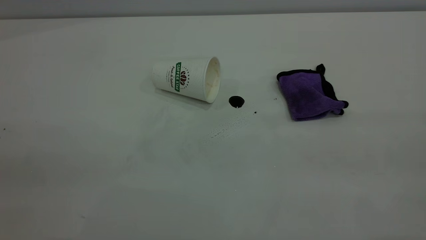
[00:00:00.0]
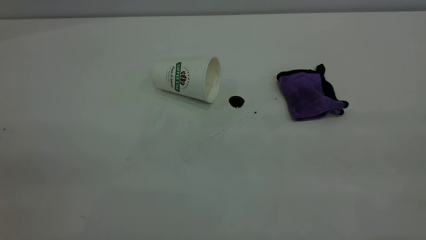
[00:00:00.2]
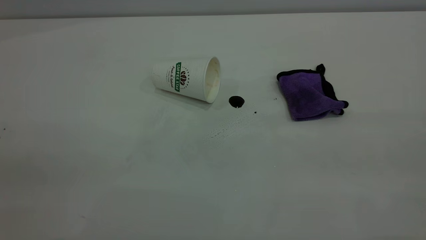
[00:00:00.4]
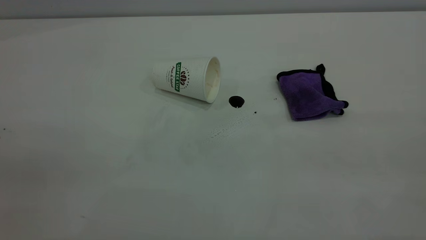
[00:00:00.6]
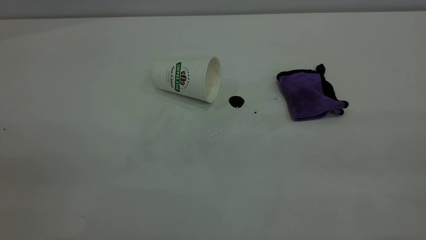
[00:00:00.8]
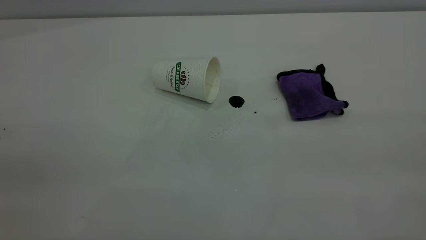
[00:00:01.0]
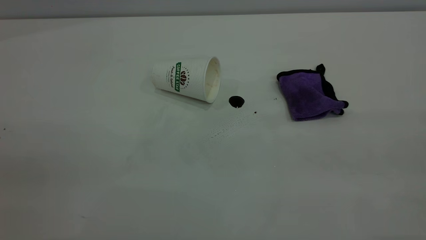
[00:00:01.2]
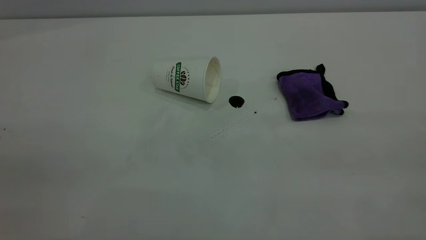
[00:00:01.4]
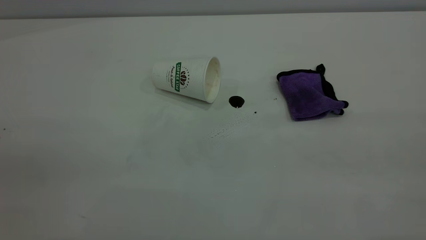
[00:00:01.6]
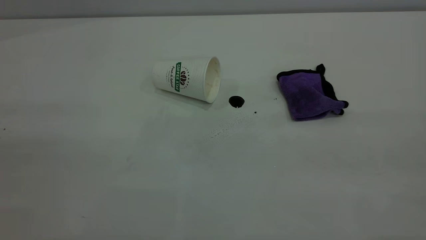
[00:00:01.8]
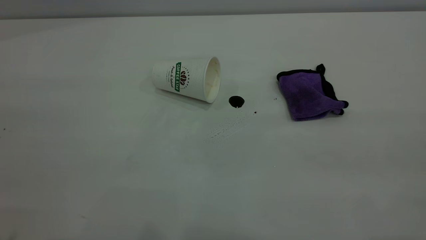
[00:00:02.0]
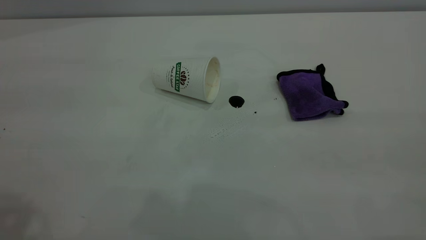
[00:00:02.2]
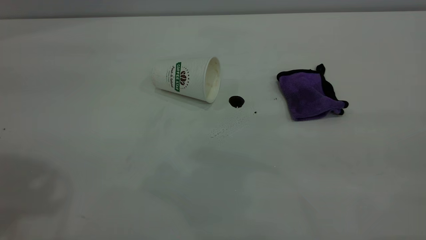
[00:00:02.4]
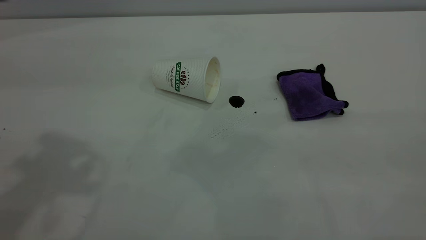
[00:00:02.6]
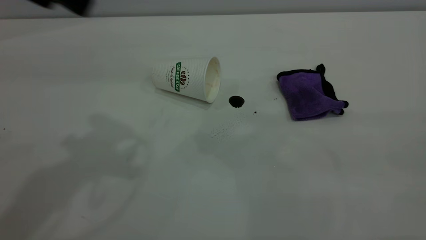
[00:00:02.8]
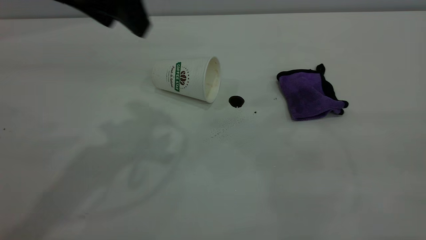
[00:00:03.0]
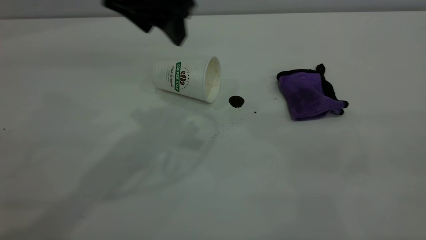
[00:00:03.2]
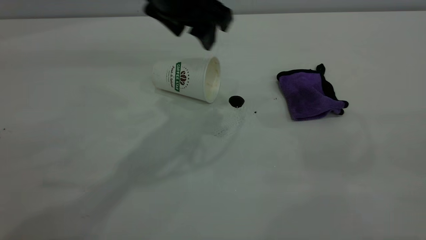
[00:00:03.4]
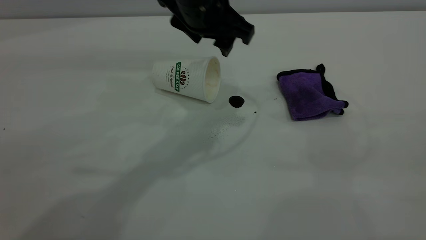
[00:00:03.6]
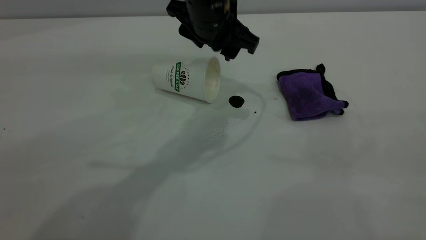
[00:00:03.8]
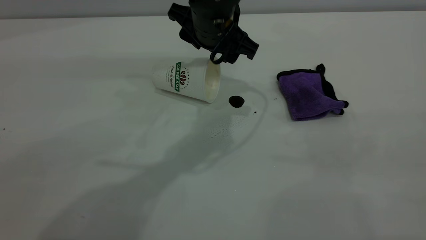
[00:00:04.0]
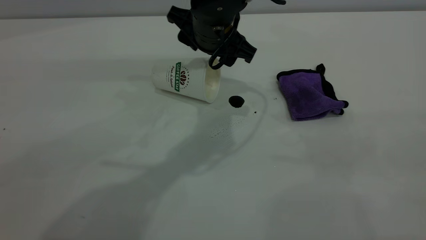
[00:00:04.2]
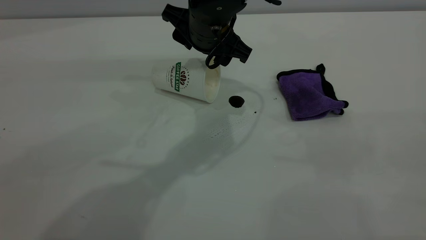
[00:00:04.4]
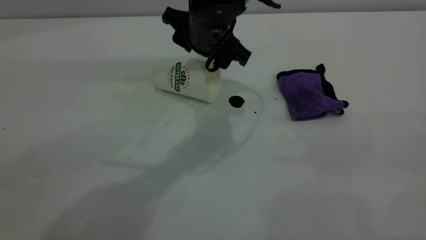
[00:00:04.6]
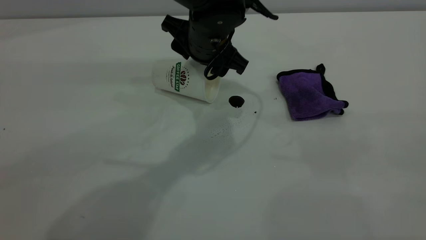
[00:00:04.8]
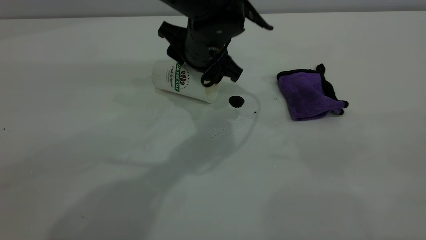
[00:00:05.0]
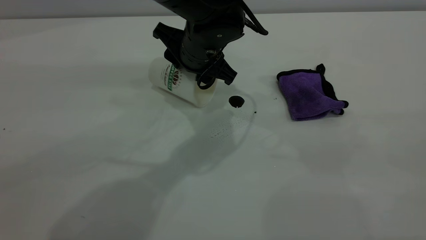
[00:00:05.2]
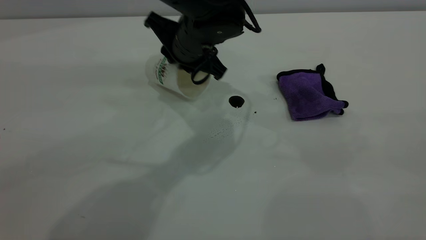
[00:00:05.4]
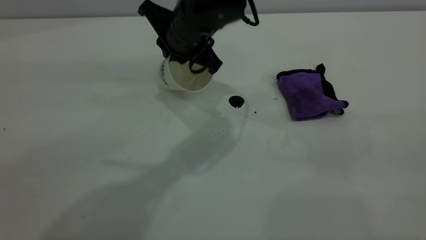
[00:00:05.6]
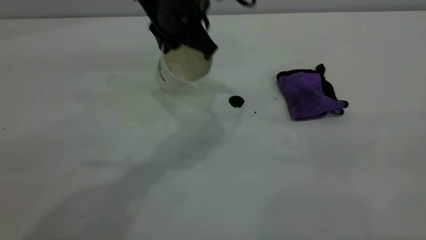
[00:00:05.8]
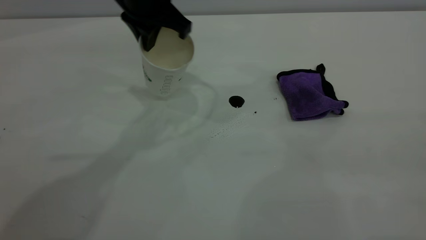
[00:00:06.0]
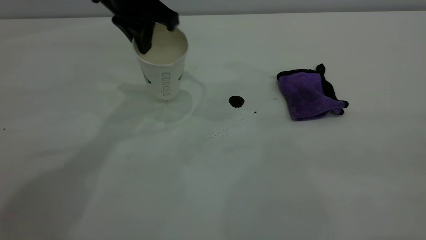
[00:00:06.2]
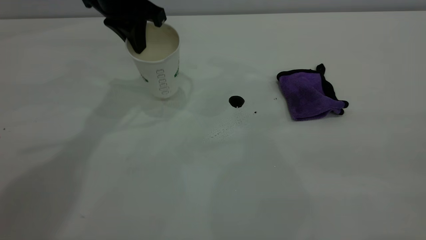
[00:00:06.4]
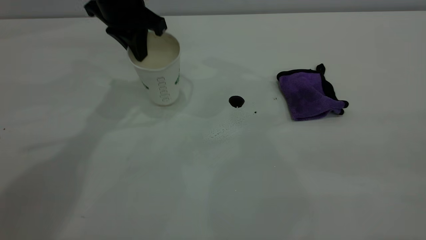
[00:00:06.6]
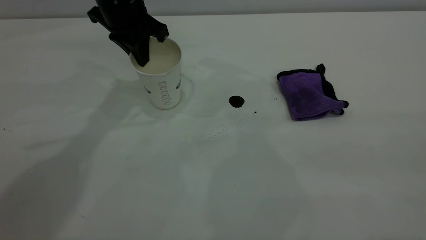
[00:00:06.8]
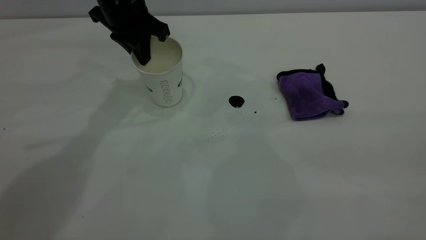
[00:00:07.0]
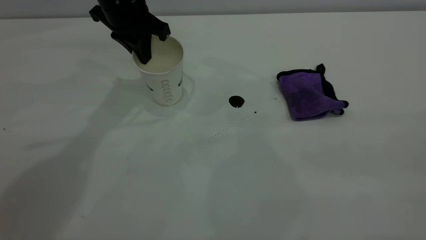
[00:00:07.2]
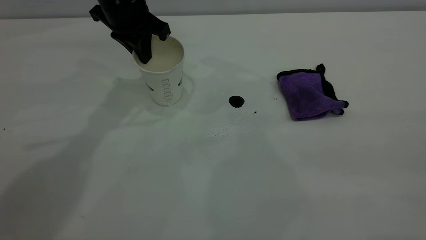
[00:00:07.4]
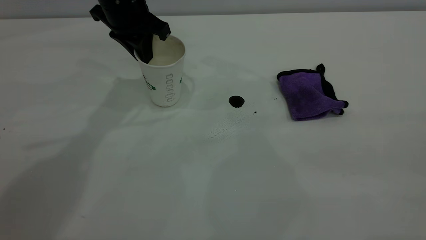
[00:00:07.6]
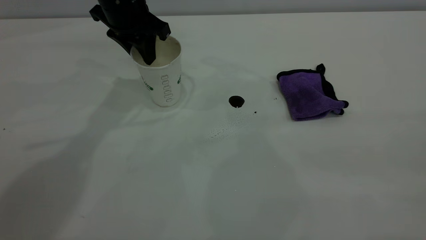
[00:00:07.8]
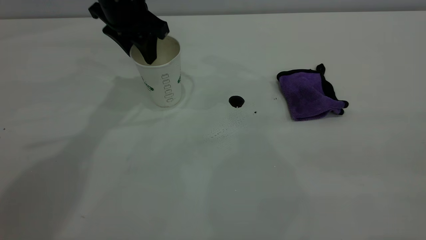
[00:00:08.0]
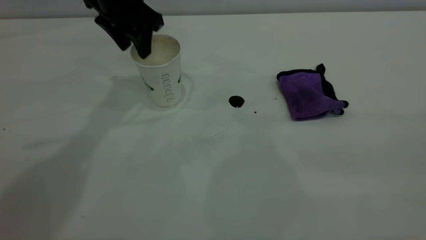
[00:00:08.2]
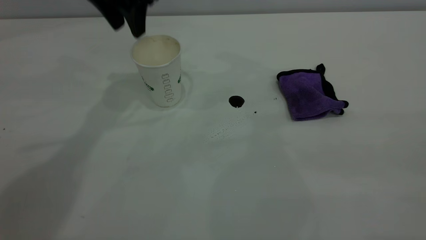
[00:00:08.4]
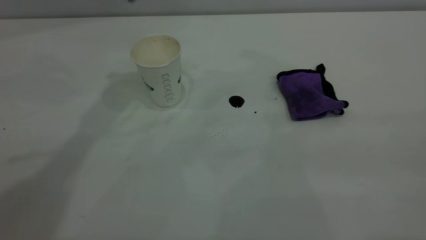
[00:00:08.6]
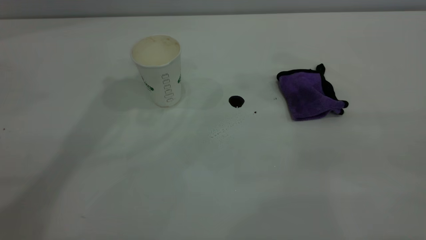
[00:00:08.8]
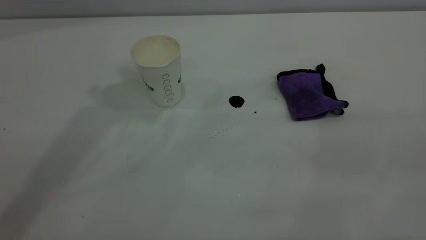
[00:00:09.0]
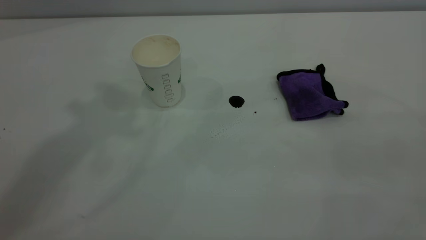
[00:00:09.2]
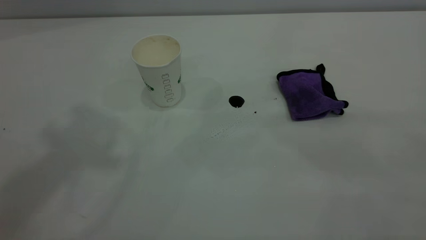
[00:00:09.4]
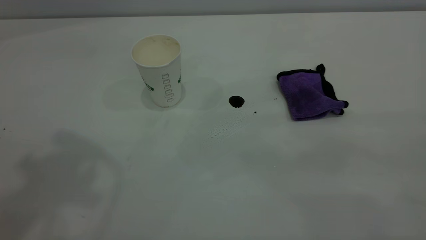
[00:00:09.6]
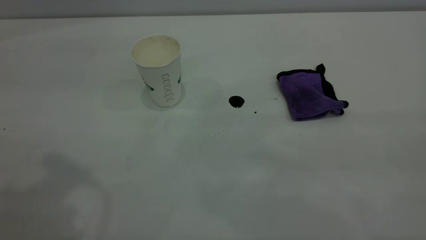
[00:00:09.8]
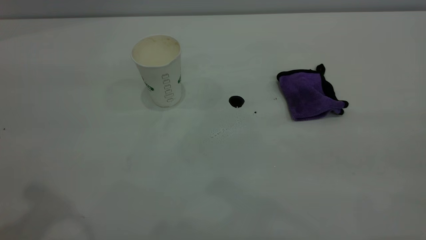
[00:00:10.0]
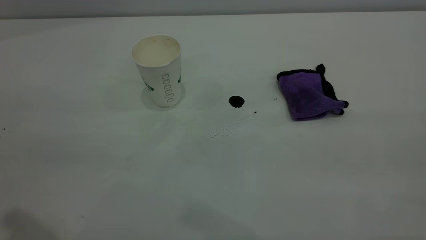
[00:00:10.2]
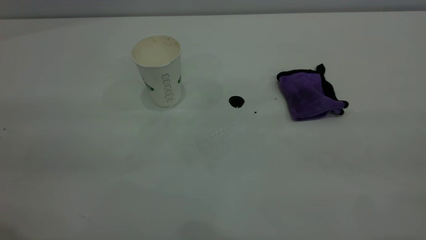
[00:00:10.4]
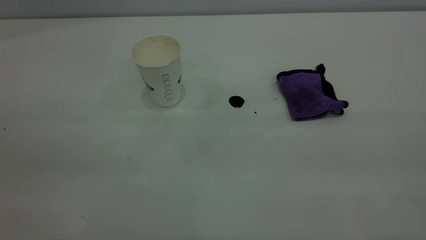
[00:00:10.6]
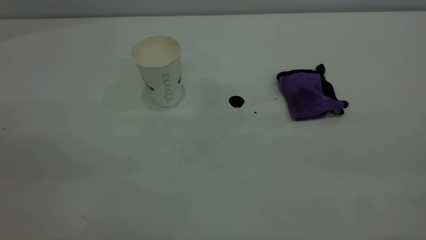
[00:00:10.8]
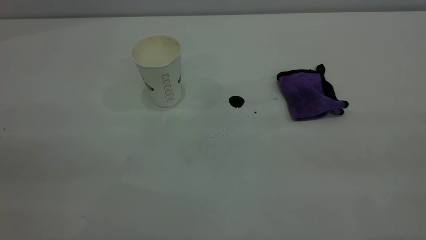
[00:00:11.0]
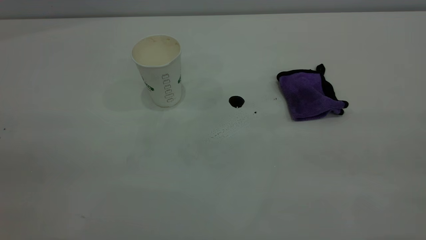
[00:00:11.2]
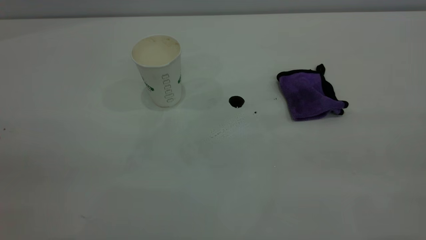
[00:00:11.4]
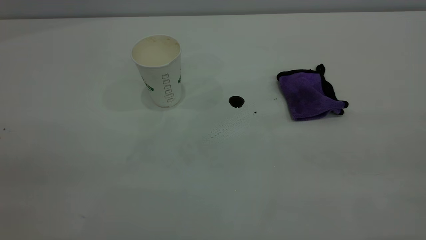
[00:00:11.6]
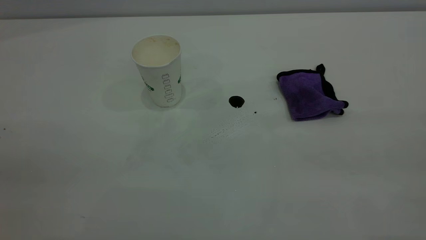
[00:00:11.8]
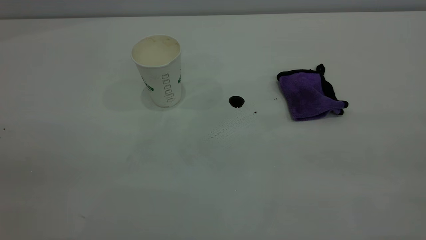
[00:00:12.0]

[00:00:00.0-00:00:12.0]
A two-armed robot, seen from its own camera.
Task of the whole recording: the left gripper pick up the fallen cup and place it upright, the right gripper grasp the purple rag and wipe the coffee stain on the table, the right gripper put the purple rag back in its original position.
Step, 00:00:00.0 to 00:00:08.2: Stand the paper cup upright.
00:00:00.0 to 00:00:01.6: The two grippers keep their place.
00:00:01.6 to 00:00:03.0: The left gripper moves forward and to the right, approximately 35 cm.
00:00:03.0 to 00:00:04.4: The left gripper heads downward, to the right and forward, covering some 20 cm.
00:00:04.4 to 00:00:06.0: The left gripper moves to the left and upward, approximately 10 cm, and closes.
00:00:06.0 to 00:00:07.6: The left gripper moves to the left, roughly 5 cm.
00:00:07.6 to 00:00:09.0: The left gripper heads upward, covering approximately 30 cm, and opens.

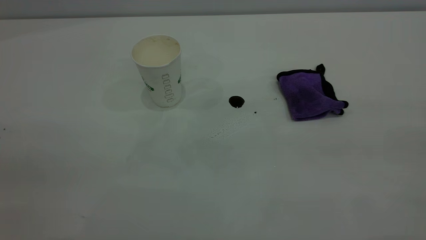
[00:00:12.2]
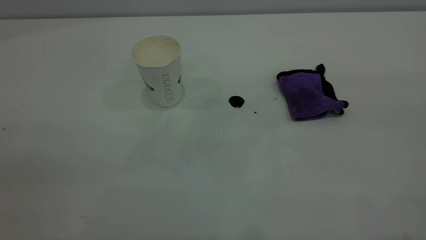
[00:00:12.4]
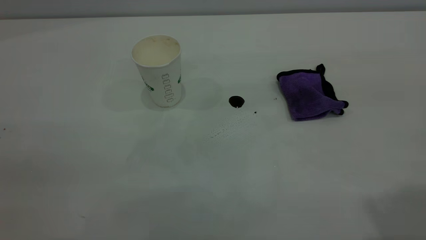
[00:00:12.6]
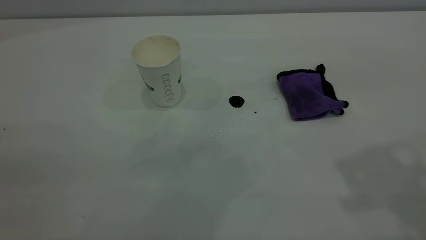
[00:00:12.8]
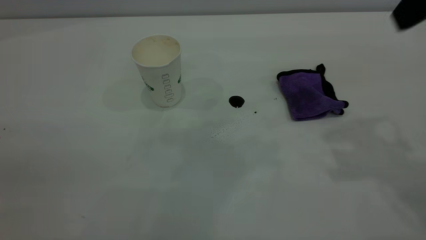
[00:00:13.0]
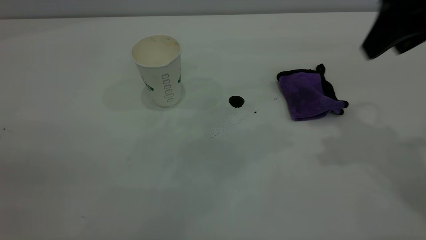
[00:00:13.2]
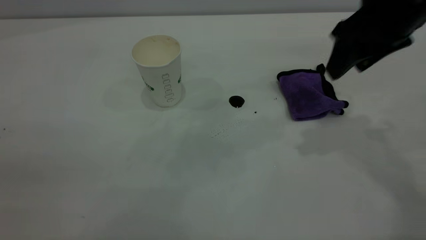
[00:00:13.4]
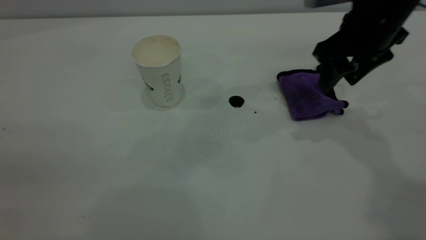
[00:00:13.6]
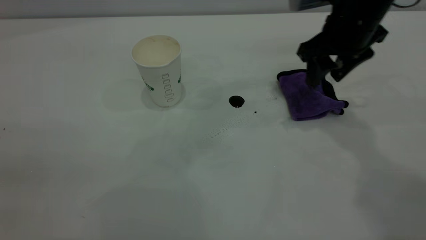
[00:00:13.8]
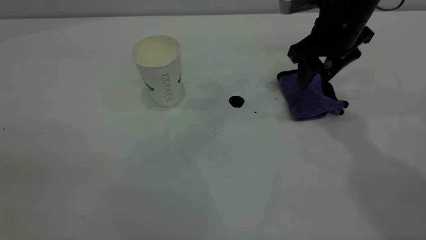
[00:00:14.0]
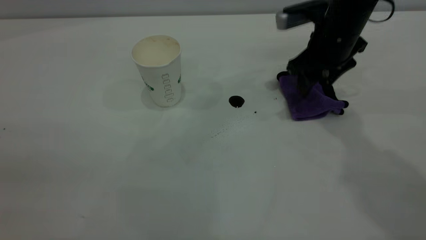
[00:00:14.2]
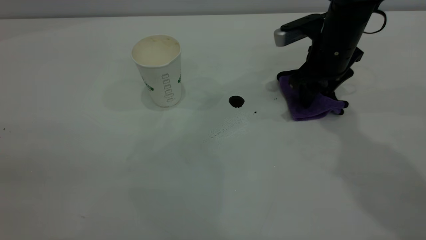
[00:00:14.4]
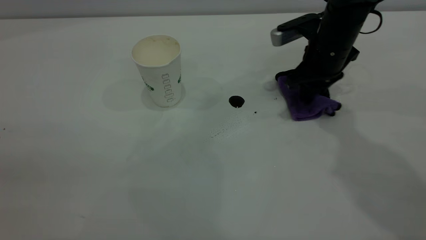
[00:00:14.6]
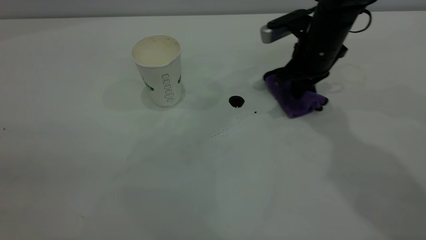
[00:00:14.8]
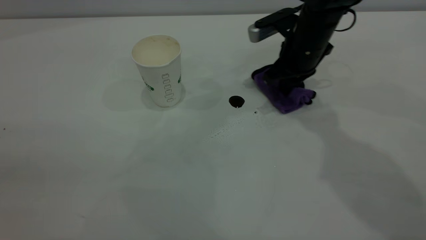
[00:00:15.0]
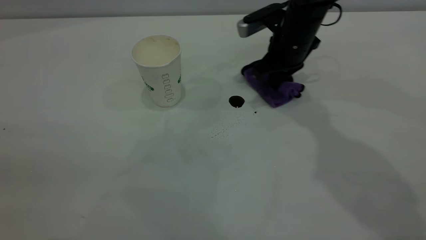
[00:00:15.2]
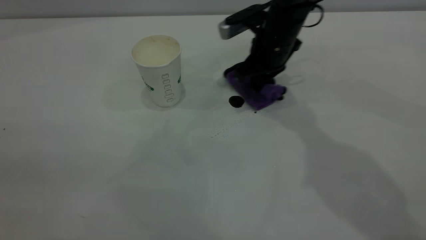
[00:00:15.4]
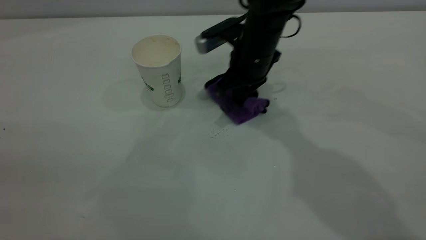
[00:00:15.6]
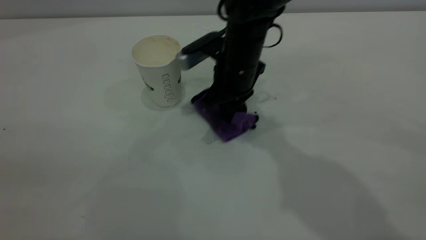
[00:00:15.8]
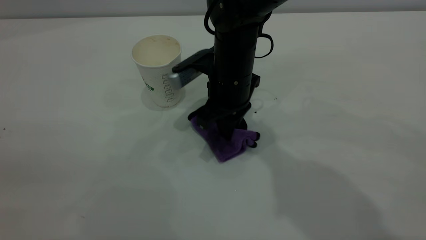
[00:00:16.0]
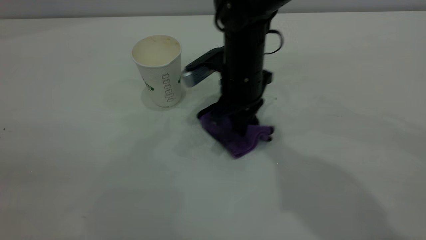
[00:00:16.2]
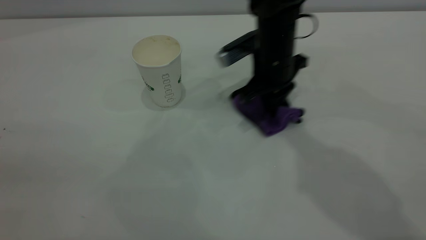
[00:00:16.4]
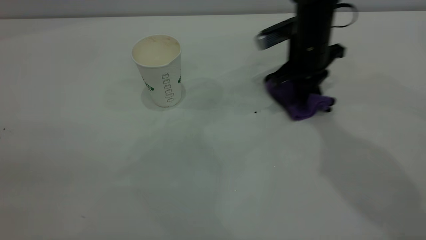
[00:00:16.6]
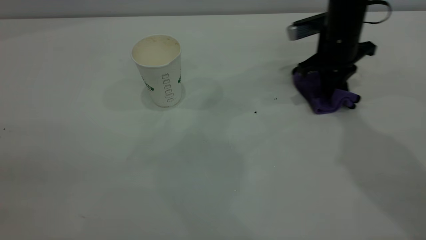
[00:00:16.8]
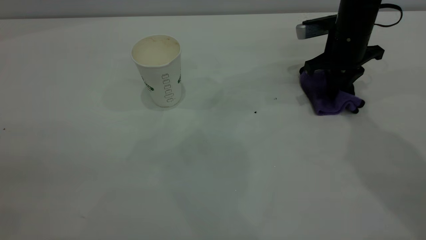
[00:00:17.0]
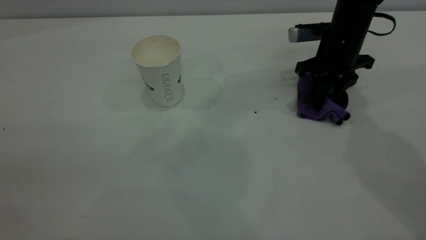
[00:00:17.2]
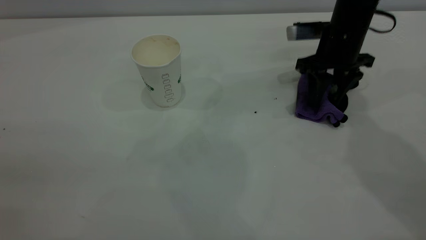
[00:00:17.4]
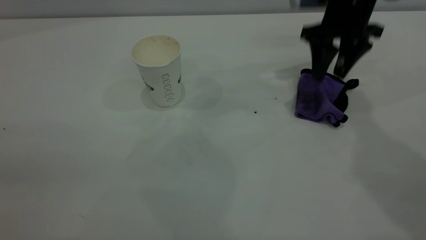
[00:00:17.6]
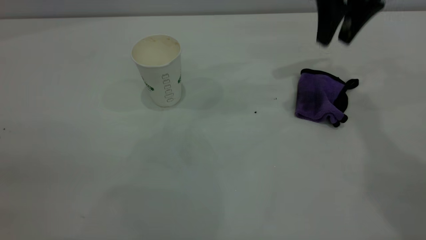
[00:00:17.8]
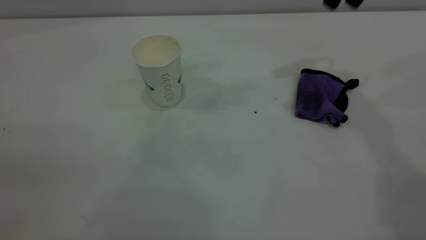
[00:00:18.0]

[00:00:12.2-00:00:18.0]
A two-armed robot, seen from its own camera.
Task of the whole recording: the left gripper pick up the fallen cup and place it upright, the right gripper grasp the purple rag and wipe the coffee stain on the table, the right gripper put the purple rag back in its original position.
Step, 00:00:12.2 to 00:00:17.6: Wipe the stains off the table with a rag.
00:00:12.2 to 00:00:13.6: The right gripper moves forward and downward, about 40 cm.
00:00:13.6 to 00:00:15.0: The right gripper travels downward, forward and to the left by about 15 cm, and closes its fingers.
00:00:15.0 to 00:00:16.6: The right gripper reaches approximately 10 cm to the left, then returns.
00:00:16.6 to 00:00:18.0: The right gripper goes approximately 20 cm upward, and opens its fingers.
